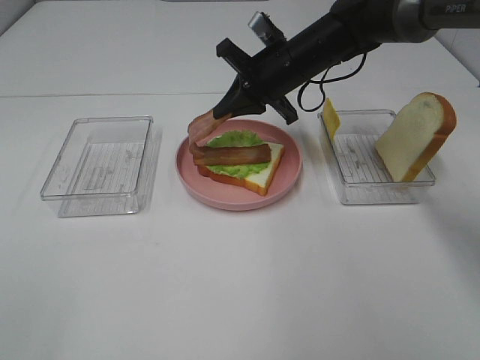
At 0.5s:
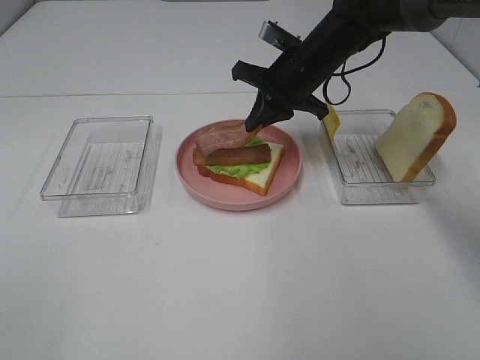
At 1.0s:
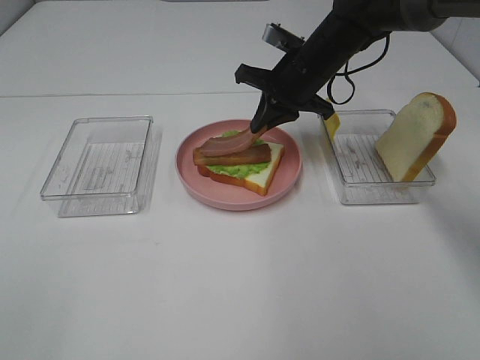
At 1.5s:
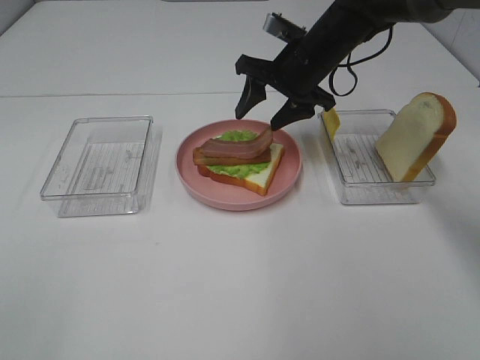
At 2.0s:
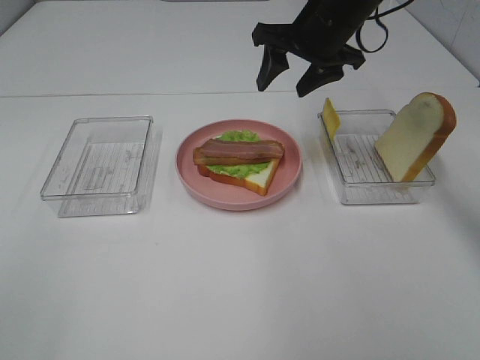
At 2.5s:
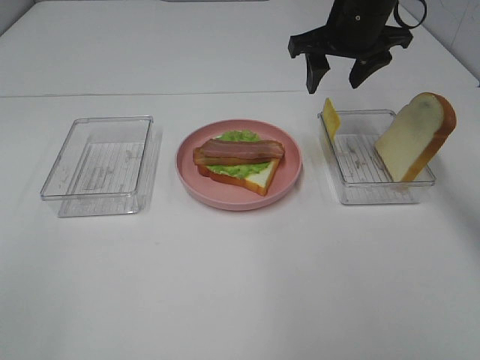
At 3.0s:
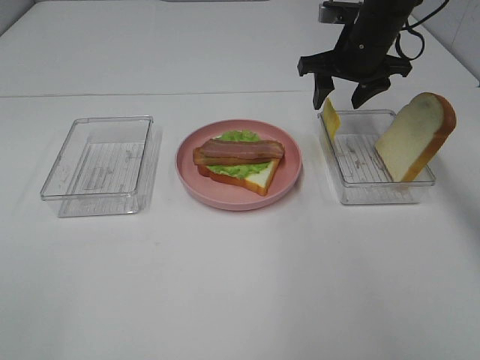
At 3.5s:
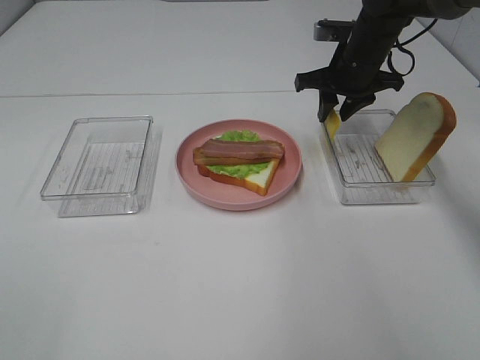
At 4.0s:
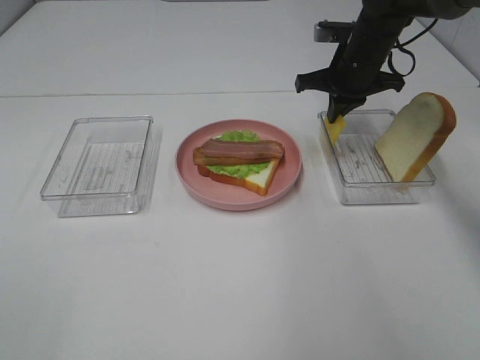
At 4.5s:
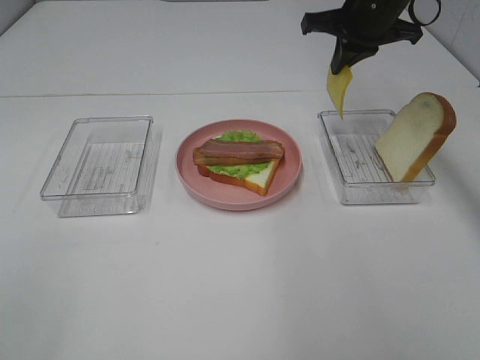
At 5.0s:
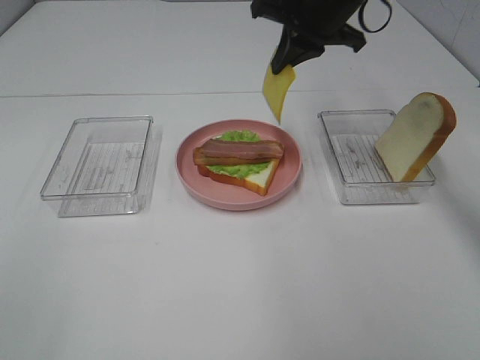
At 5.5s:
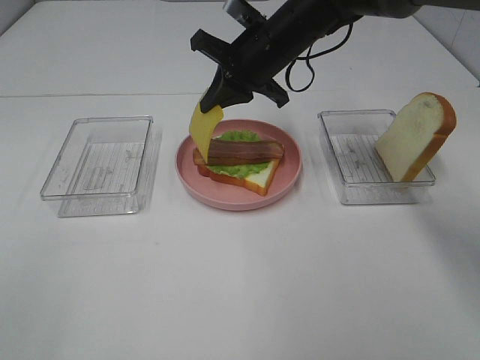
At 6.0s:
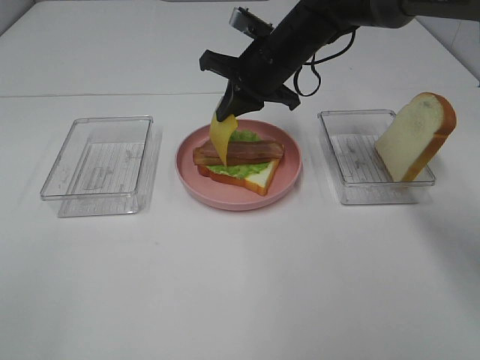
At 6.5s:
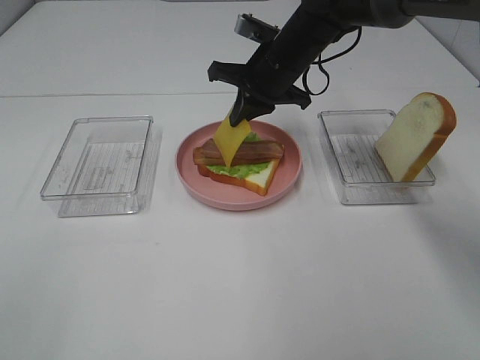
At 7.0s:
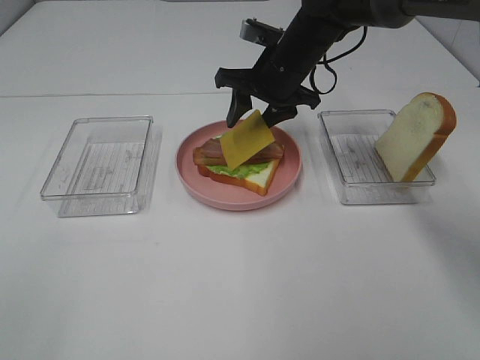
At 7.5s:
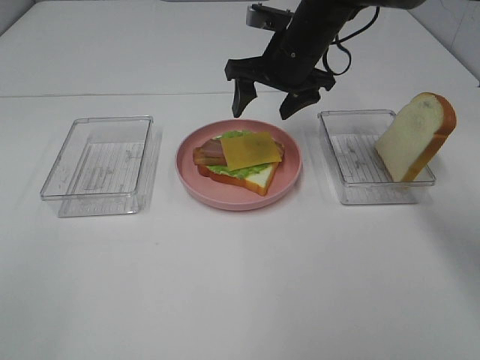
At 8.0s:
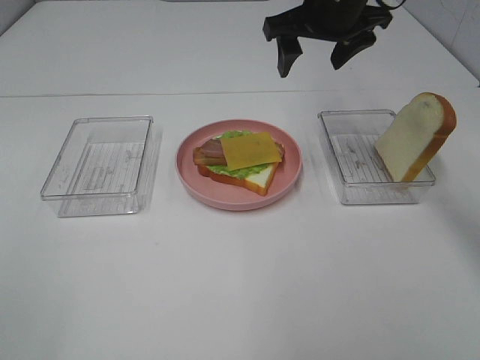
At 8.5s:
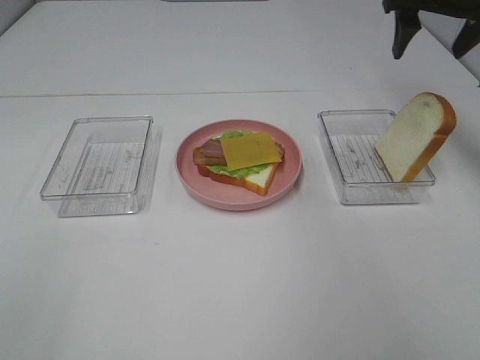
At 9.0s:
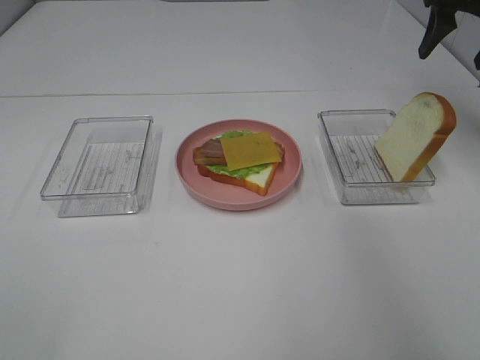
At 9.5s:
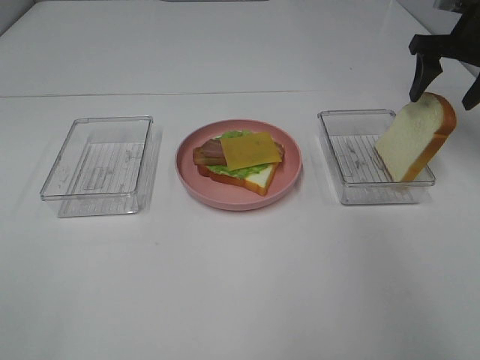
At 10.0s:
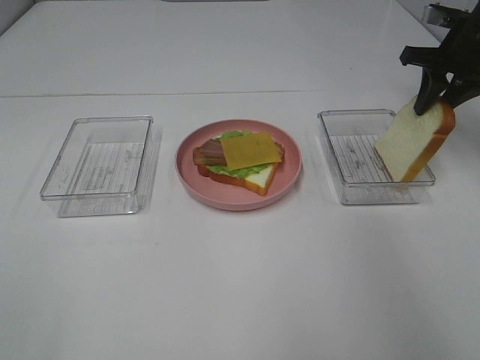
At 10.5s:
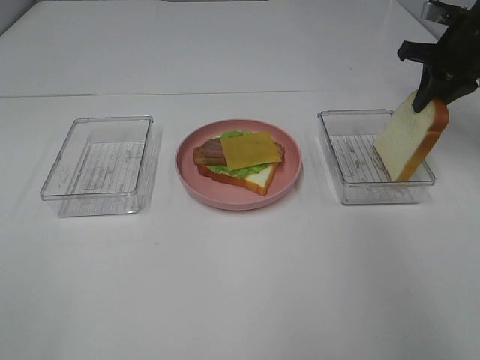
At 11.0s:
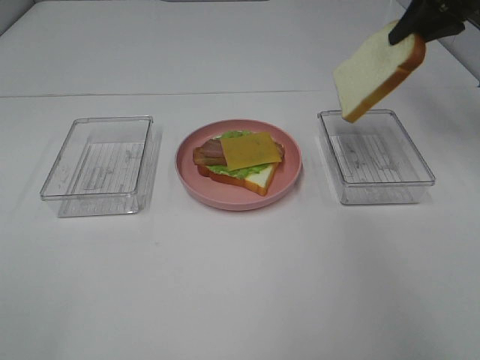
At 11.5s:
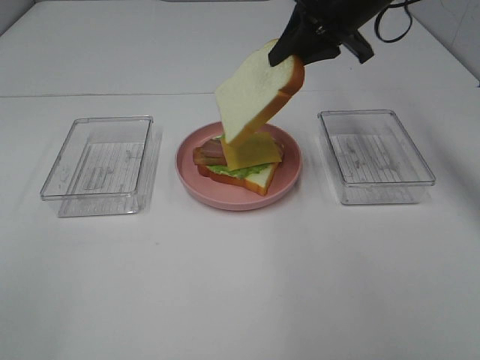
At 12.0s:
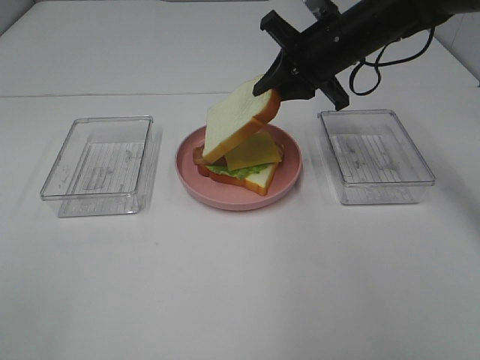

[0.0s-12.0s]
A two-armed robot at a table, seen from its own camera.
Task of the whole recording: Make sandwiches.
Step, 2.0s to 3.5s: Right hand:grab the cheese slice.
Step, 4.0s to 7.5s: Right hand:place the cheese slice on top of the bacon.
Step, 8.0s to 10.0s: Right hand:grab the bread slice.
0.0s to 2.0s: The right gripper shifts approximately 10 cm upward, and opens up.
2.0s to 4.0s: The right gripper heads downward and to the right, covering roughly 10 cm, and closes up.
4.0s to 6.0s: The right gripper moves to the left, about 10 cm.
6.0s to 8.0s: The right gripper travels upward and to the right by about 10 cm, and opens up.
8.0s to 10.0s: The right gripper moves to the right, roughly 20 cm, and closes its fingers.
10.0s to 12.0s: The right gripper moves to the left, about 20 cm.

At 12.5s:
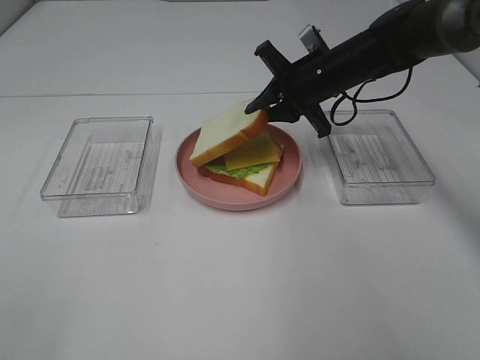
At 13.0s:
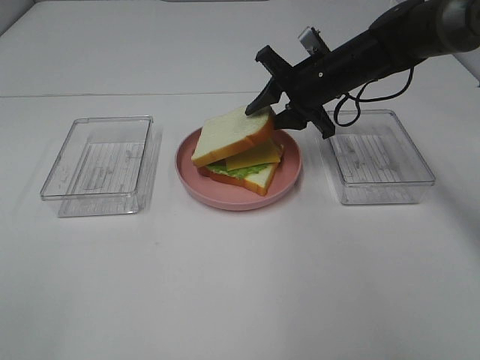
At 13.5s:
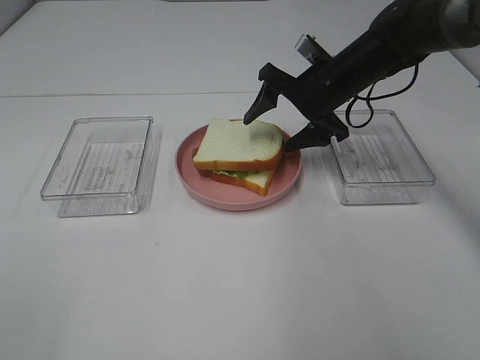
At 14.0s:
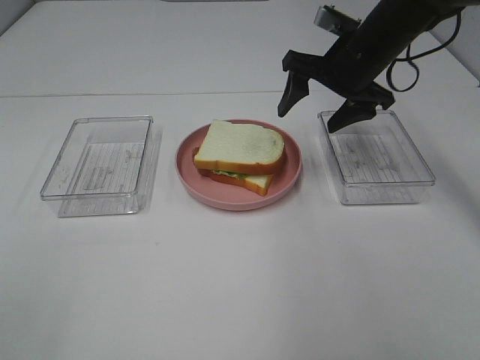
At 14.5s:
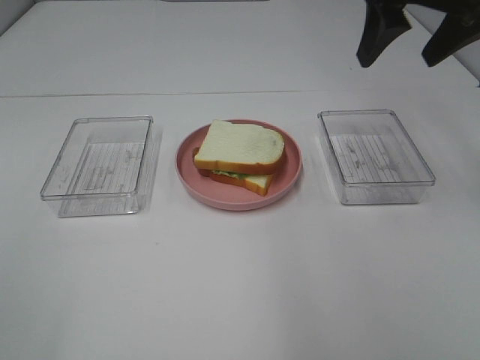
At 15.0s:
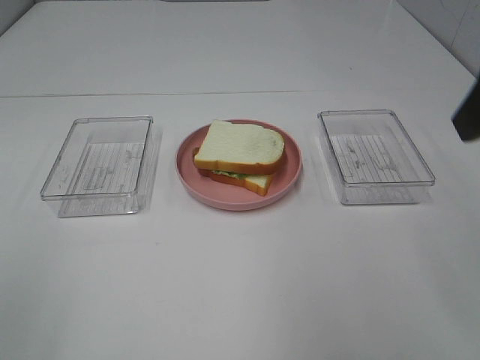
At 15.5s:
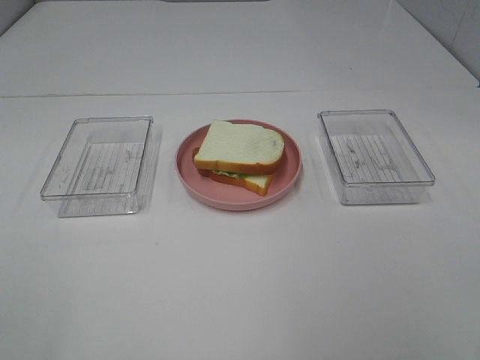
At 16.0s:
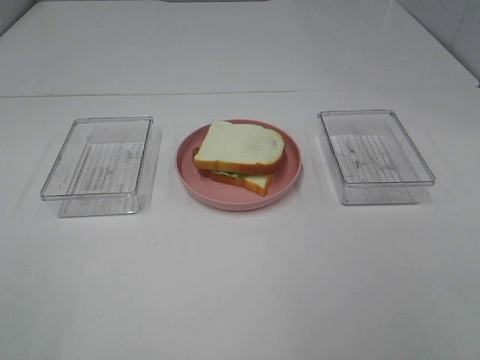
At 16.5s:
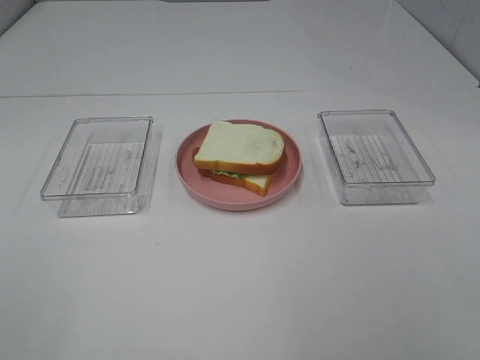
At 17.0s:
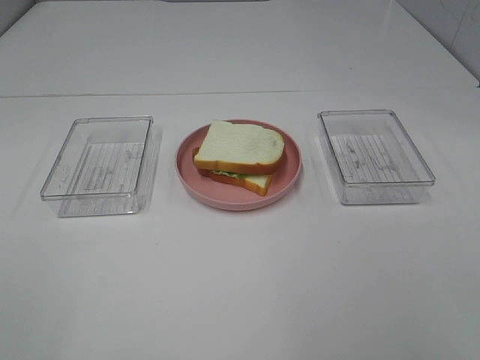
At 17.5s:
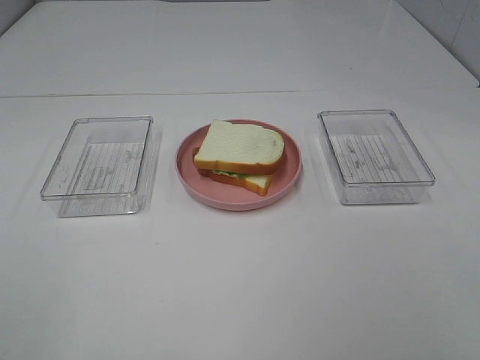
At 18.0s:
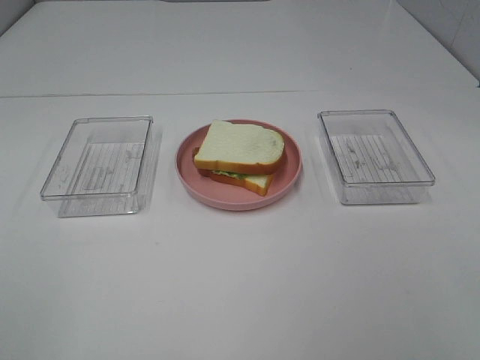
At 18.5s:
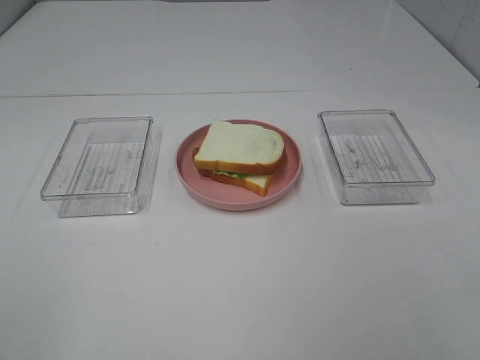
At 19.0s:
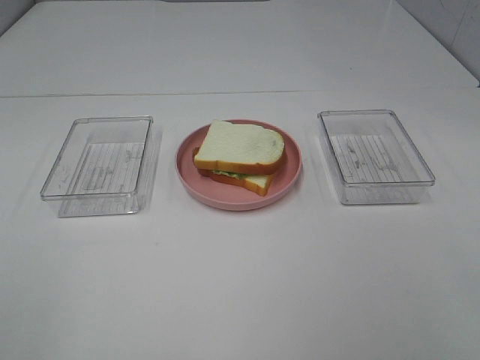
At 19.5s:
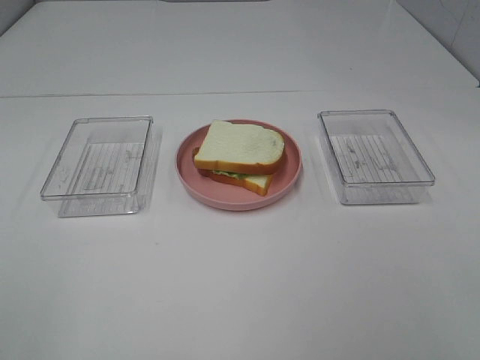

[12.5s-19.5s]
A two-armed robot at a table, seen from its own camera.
Task of the whole recording: Make sandwiches.
12.5s to 14.5s: The right gripper is displaced upward and backward by some 20 cm, and opens its fingers.
14.5s to 16.0s: The right gripper goes approximately 35 cm backward.
17.5s to 19.5s: Both grippers stay put.

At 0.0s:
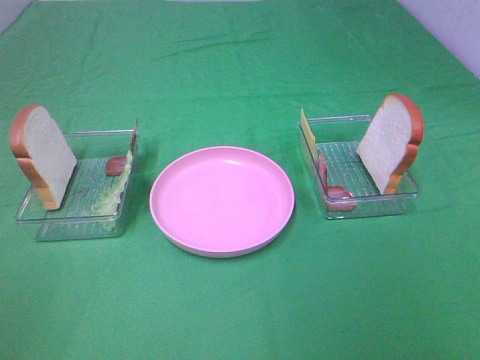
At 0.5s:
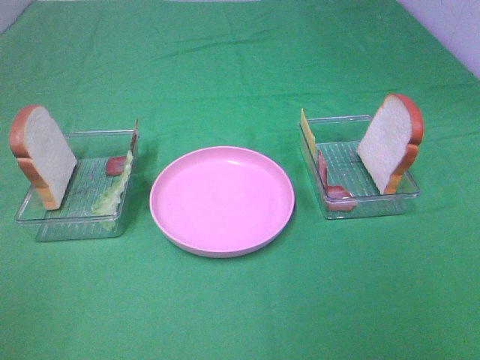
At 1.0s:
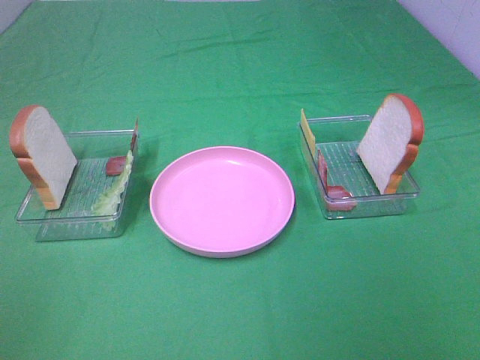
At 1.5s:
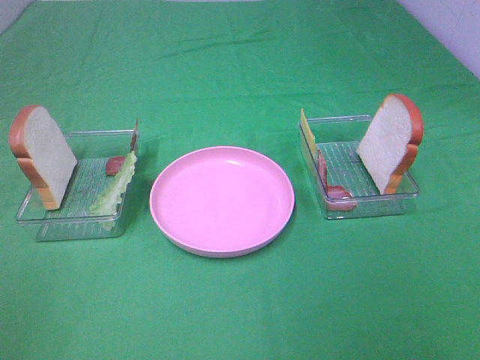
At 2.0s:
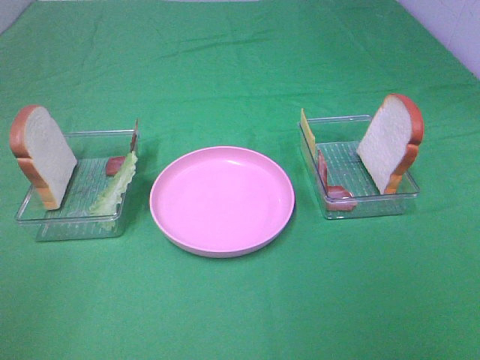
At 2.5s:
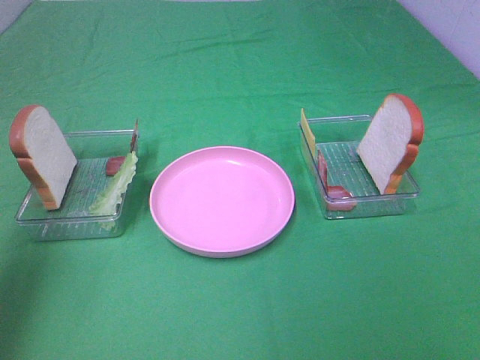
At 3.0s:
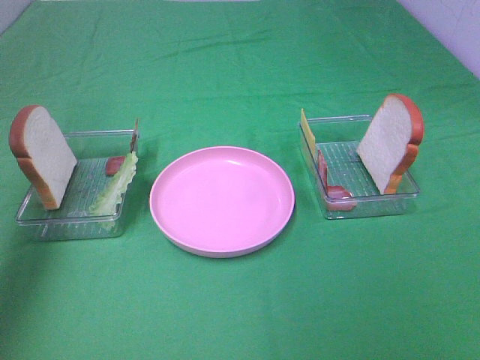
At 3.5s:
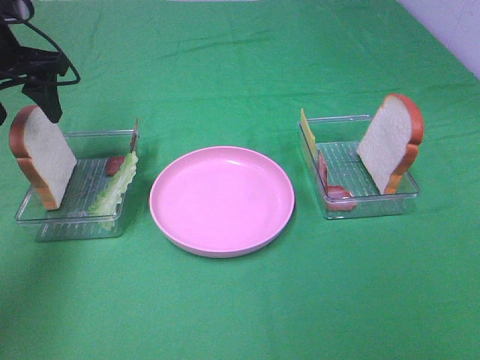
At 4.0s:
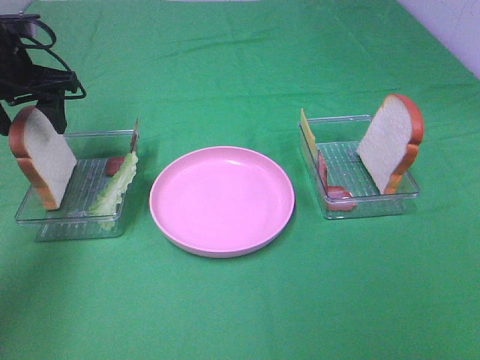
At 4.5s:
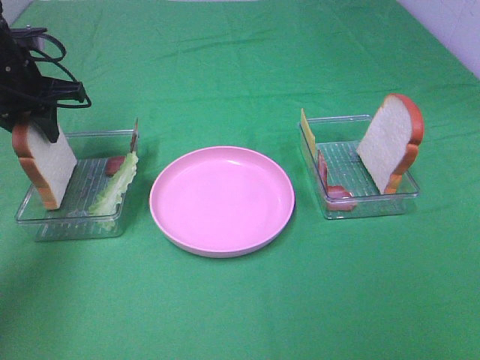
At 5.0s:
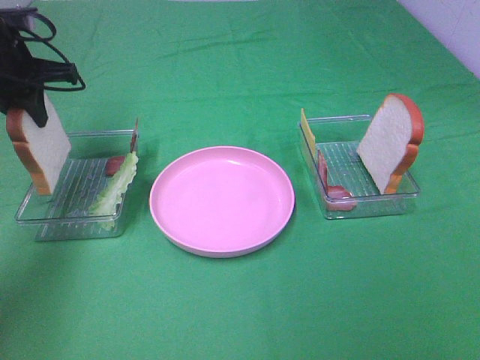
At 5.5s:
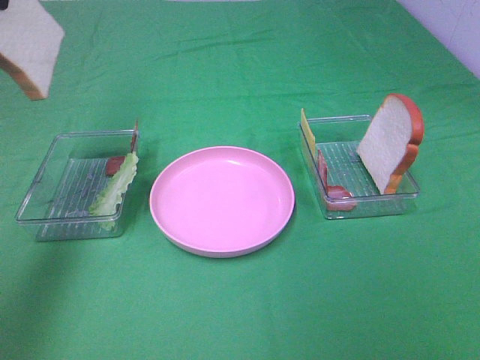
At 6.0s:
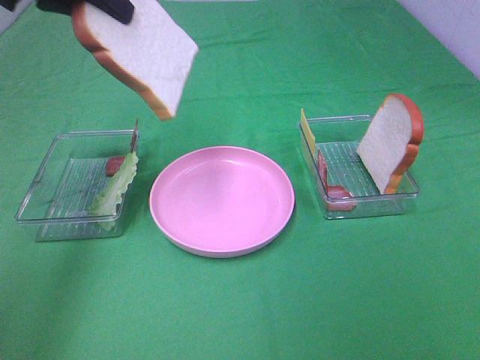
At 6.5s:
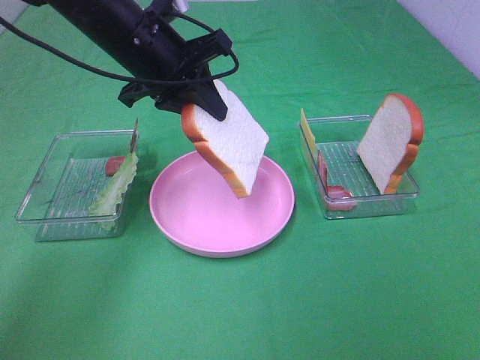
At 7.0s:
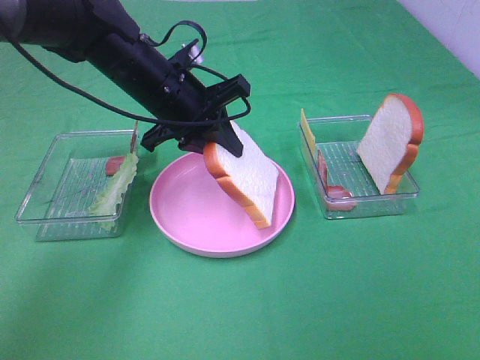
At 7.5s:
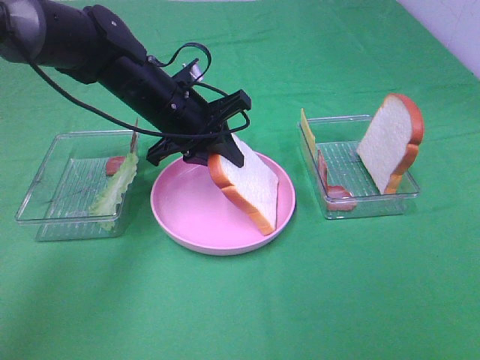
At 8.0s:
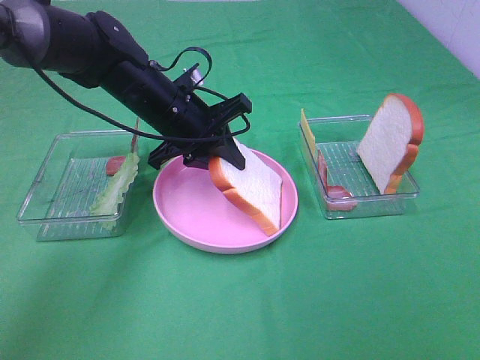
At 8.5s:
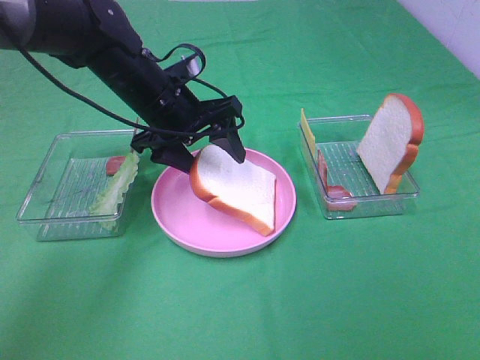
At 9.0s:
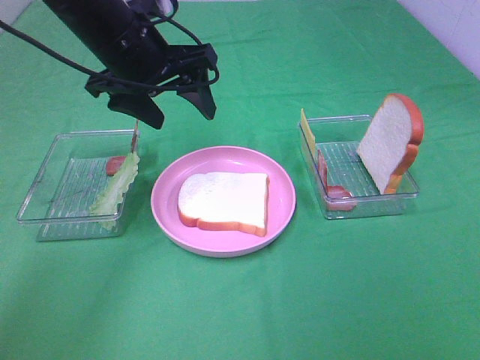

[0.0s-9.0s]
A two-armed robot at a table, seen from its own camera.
Task of the whole recording: Make sandwiches.
Step, 0.0s to 4.5s: Left hand:grab the bread slice.
Step, 5.0s to 8.5s: Left hand:place the bread slice on the plate.
2.0s to 4.5s: The left gripper heads forward, covering some 40 cm, and closes up.
4.5s to 7.0s: The left gripper moves to the right, approximately 20 cm, and travels upward and back again, some 20 cm each way.
7.0s to 9.0s: The left gripper moves upward, some 5 cm, and opens.
